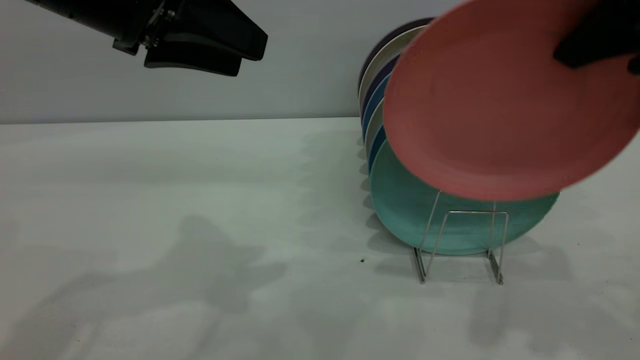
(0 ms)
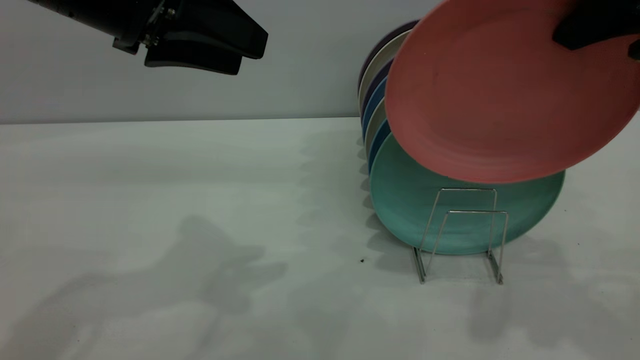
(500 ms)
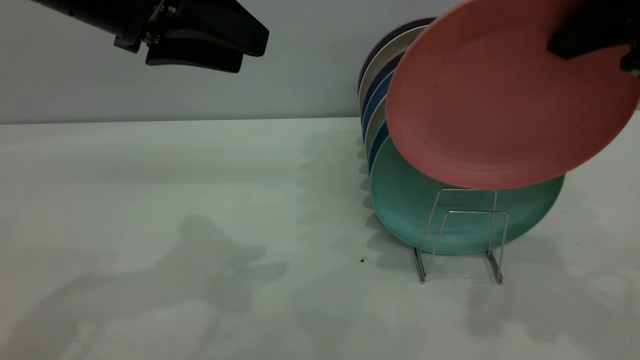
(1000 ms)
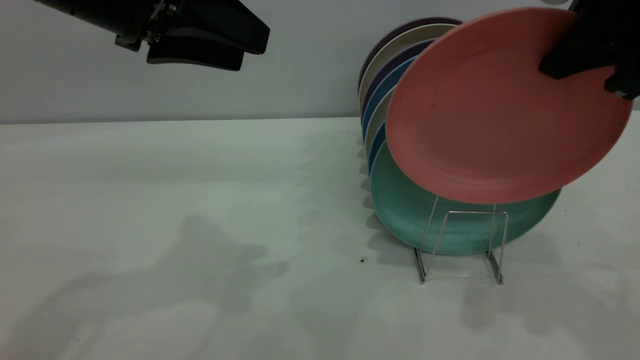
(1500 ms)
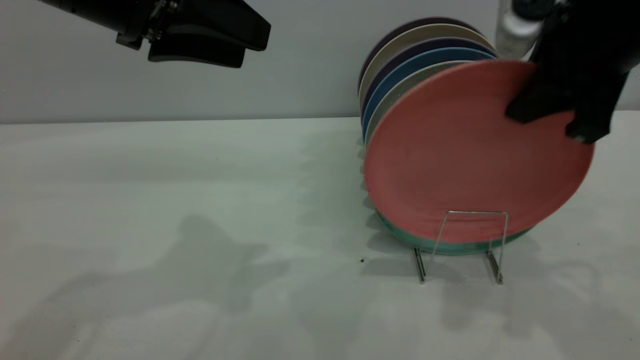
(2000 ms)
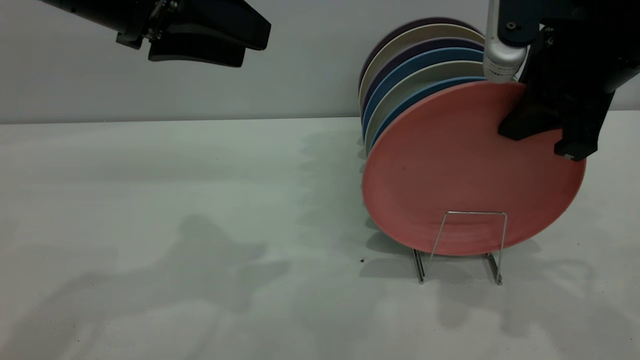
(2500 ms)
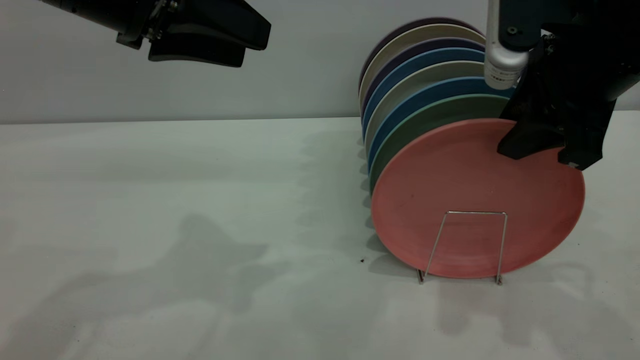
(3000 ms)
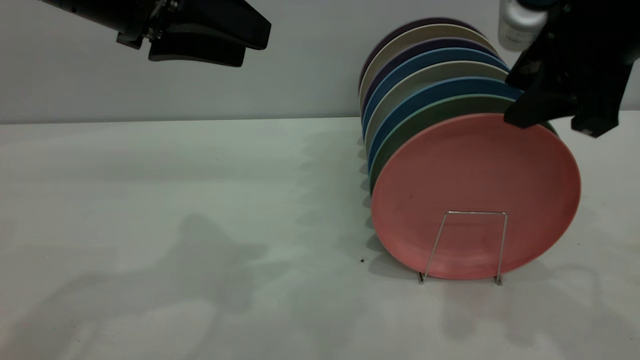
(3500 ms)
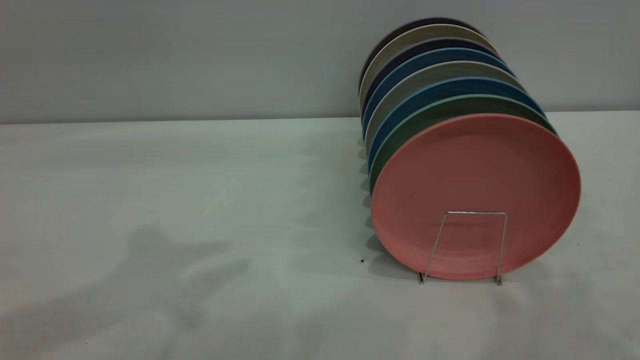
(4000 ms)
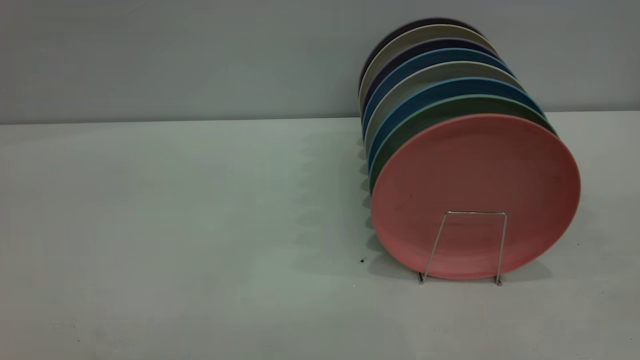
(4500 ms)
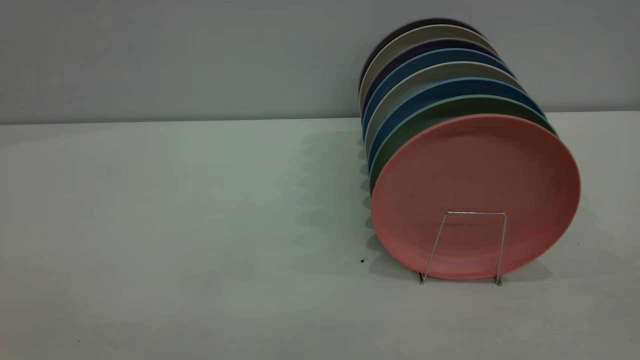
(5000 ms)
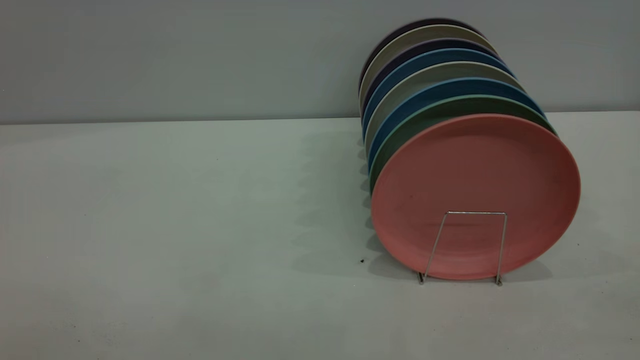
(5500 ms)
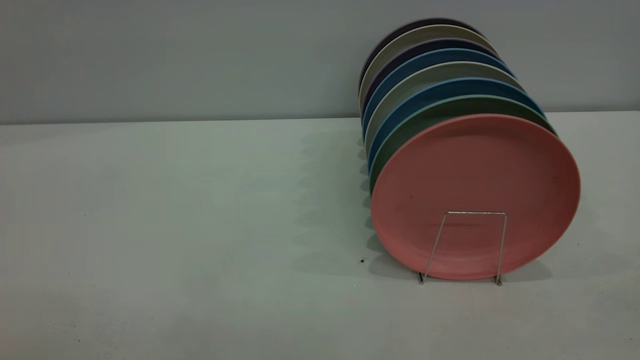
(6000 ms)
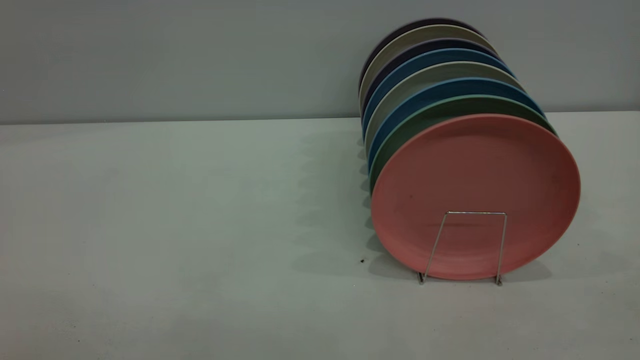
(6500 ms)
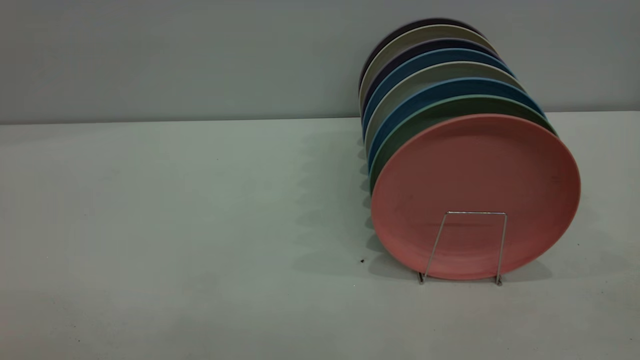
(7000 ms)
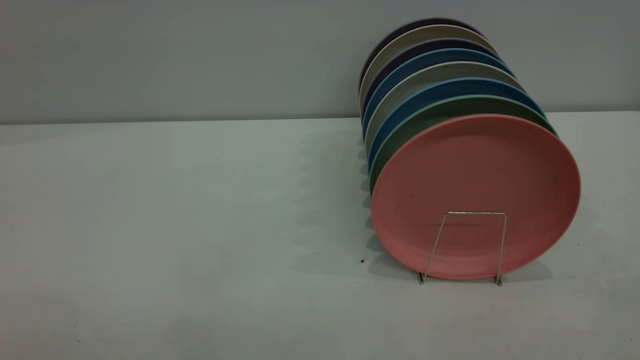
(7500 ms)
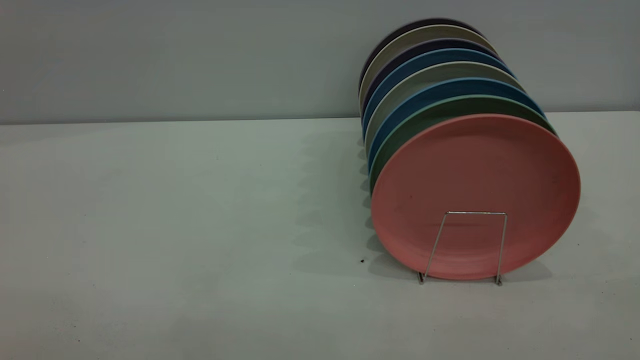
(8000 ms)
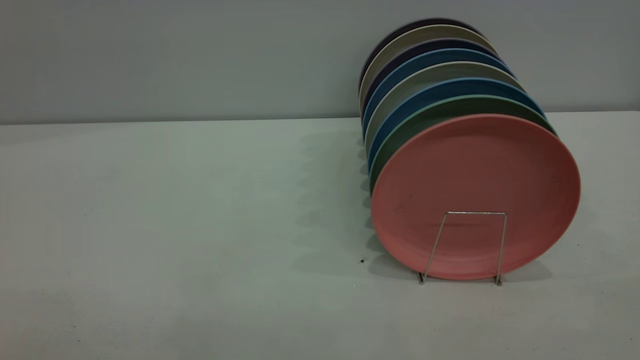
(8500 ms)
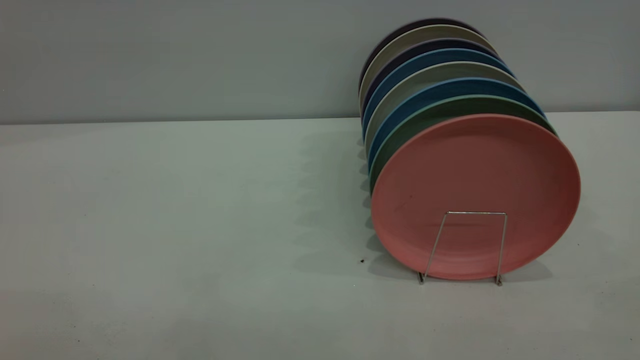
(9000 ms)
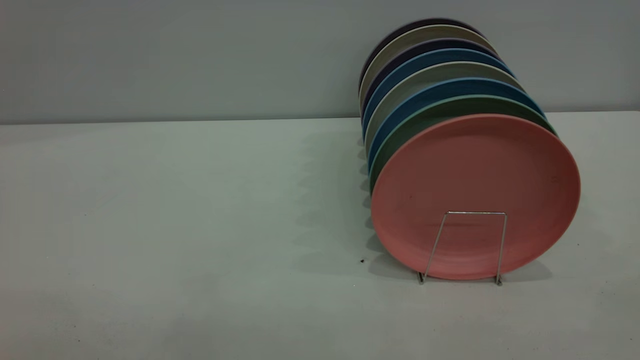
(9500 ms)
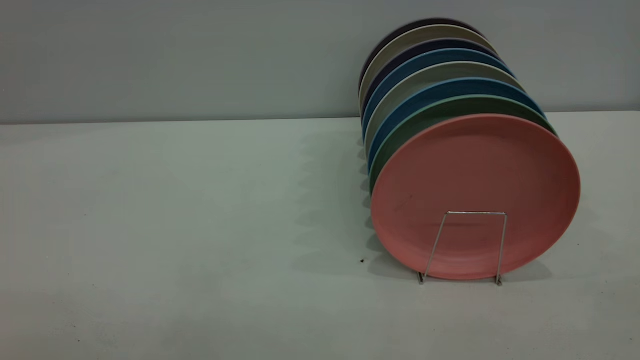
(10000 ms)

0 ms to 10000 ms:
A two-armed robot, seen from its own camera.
Task of the whole recording: put the plate on the plate rack.
Step, 0 ms to 3500 ms: Place the plate on the shelf.
0 ms to 2000 ms: The right gripper goes approximately 5 cm downward.
2000 ms to 4000 ms: The left gripper goes roughly 10 cm upward, while the right gripper moves upward and backward, some 15 cm, and opens.
8000 ms to 10000 ms: Neither gripper changes place.
